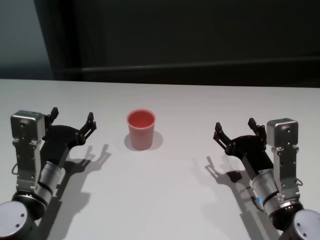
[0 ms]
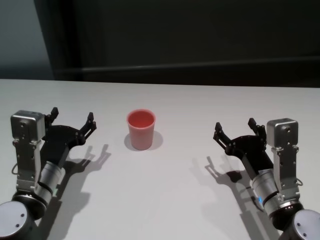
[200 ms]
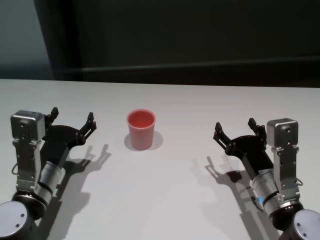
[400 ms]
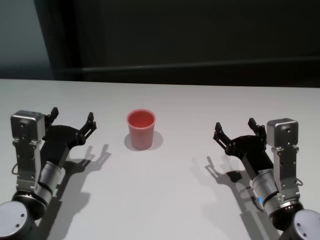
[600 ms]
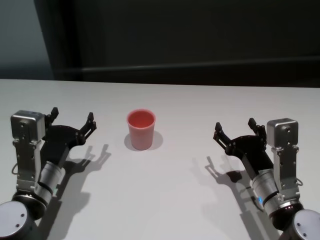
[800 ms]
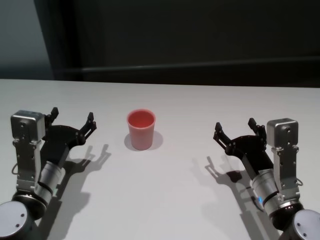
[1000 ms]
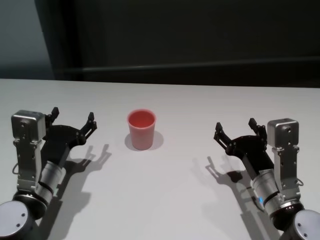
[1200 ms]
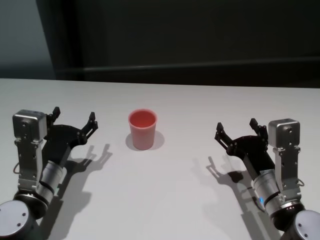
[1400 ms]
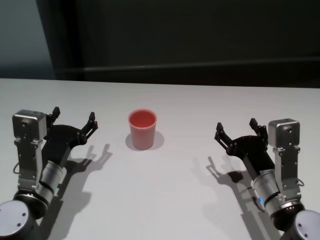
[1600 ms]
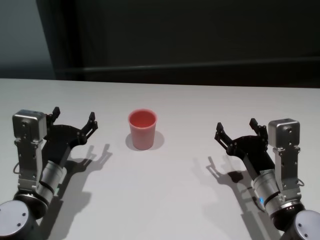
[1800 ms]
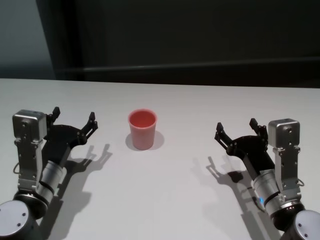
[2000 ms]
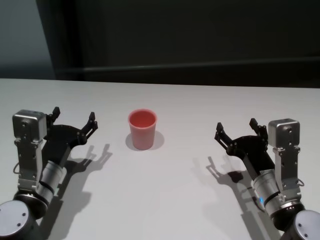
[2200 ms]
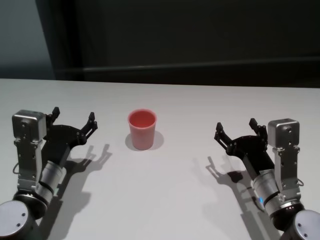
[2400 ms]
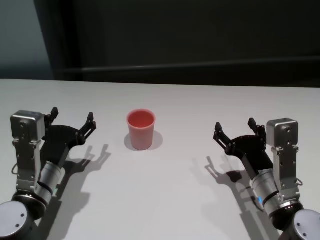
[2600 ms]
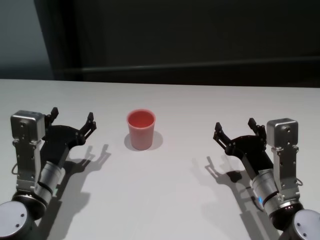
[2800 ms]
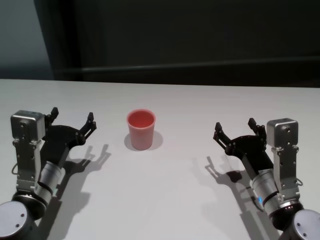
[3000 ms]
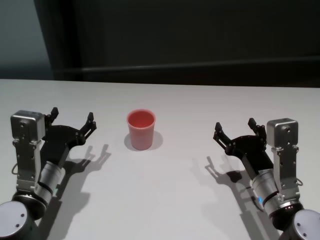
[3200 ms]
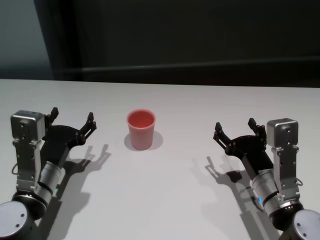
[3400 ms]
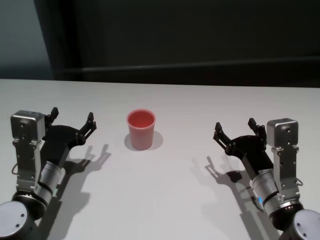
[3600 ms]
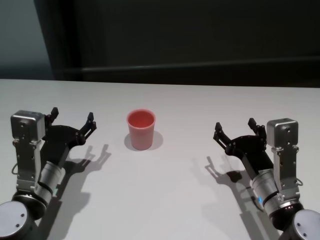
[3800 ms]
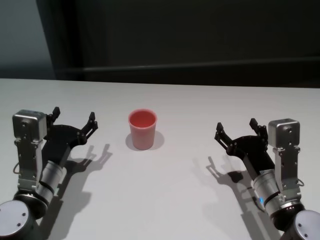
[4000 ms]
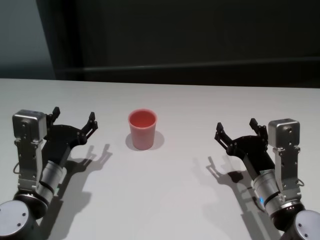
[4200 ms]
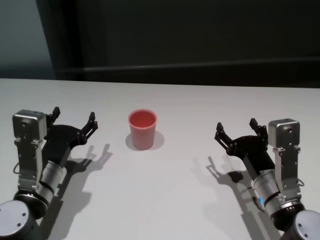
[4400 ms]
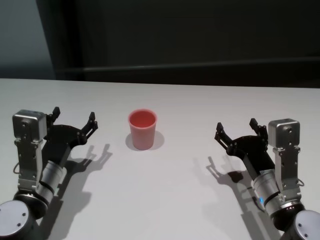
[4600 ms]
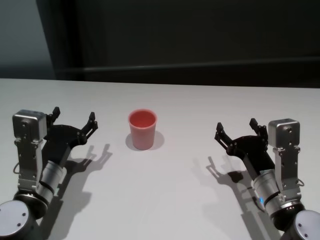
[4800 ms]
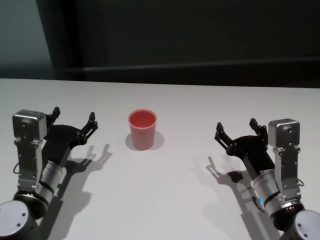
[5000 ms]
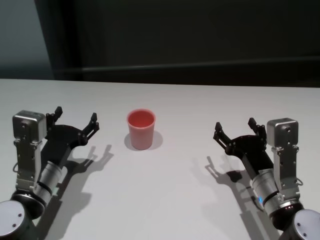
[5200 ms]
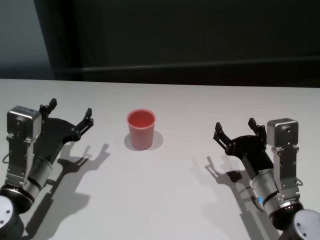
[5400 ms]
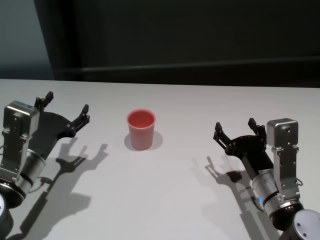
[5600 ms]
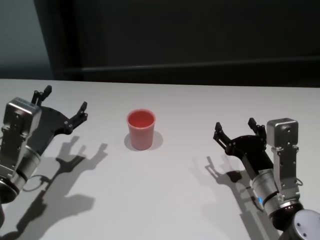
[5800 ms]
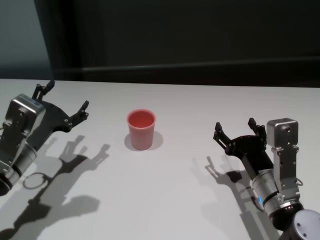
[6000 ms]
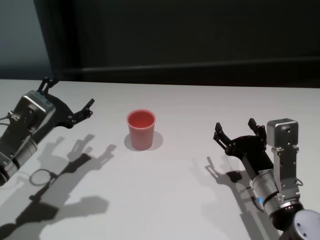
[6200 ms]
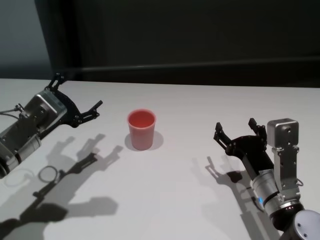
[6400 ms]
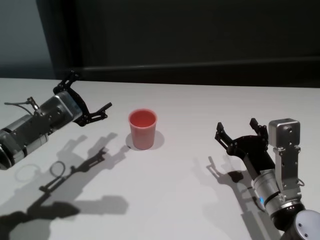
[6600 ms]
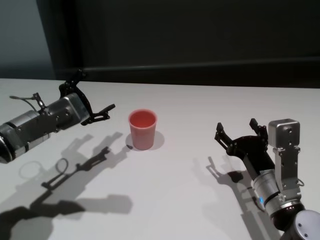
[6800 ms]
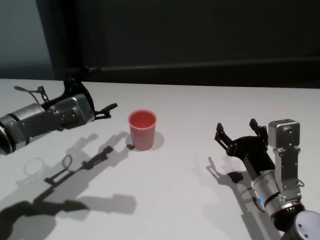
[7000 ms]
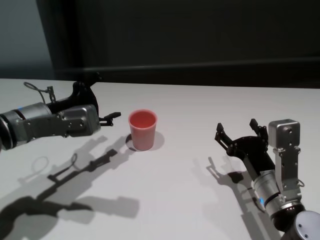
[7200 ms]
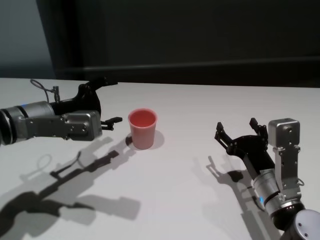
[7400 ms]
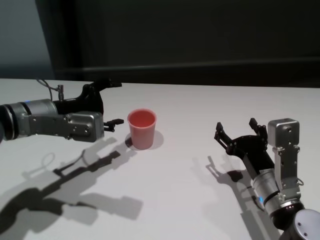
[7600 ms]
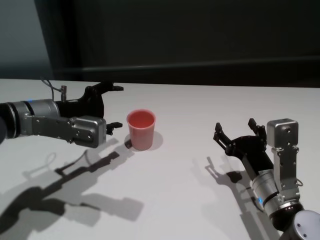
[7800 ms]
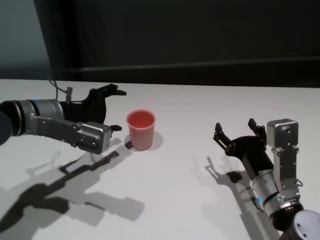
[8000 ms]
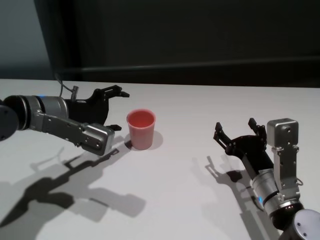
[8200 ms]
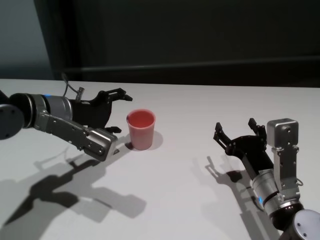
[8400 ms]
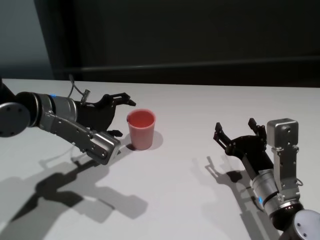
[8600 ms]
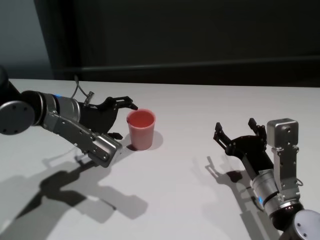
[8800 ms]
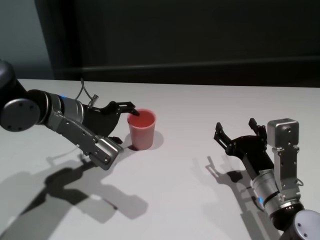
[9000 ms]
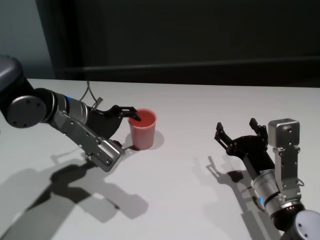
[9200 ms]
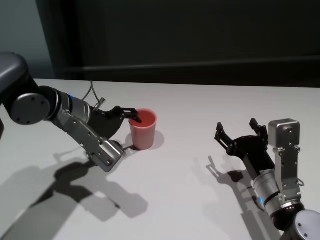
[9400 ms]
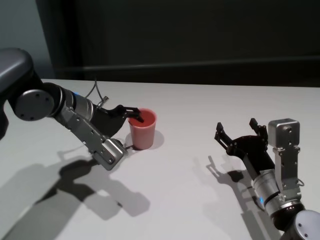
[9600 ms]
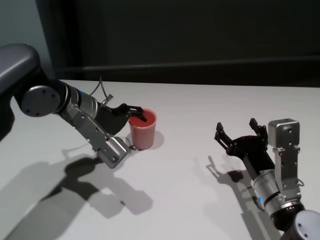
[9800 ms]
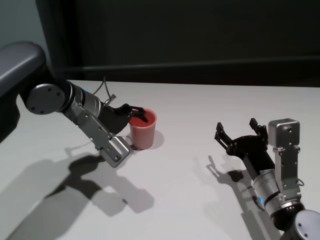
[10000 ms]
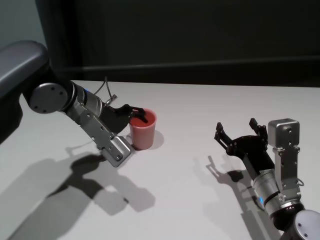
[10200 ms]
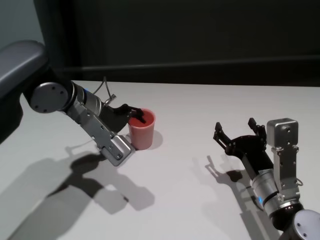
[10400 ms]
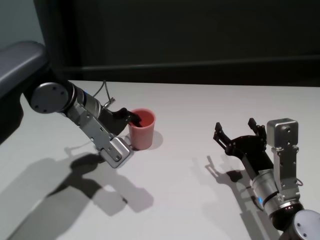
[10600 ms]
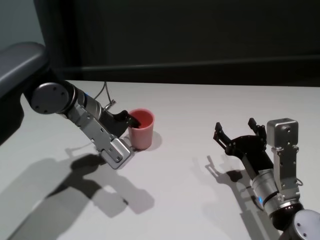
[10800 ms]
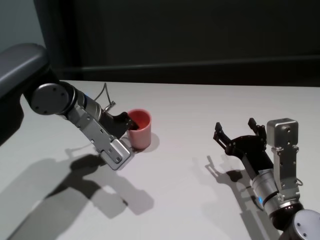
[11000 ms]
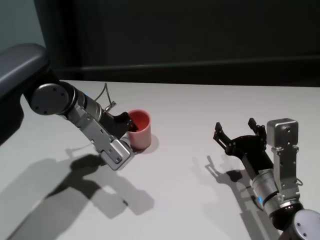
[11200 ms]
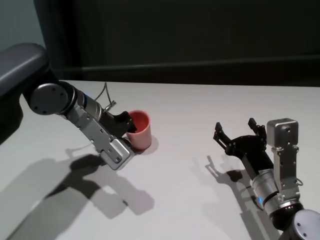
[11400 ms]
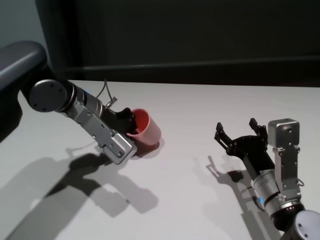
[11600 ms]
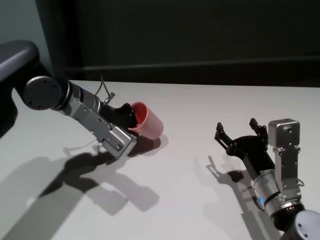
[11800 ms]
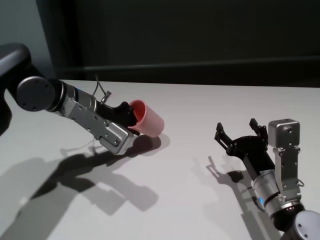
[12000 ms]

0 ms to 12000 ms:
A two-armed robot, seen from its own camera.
Task of the whole recording: On the white table pick up the cup with one hand and transfer it to the other hand before turning it over.
Step, 0 ms to 11400 ms: Grasp the cup with left gripper.

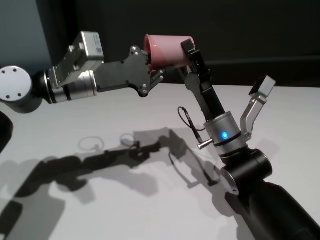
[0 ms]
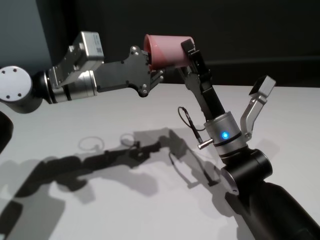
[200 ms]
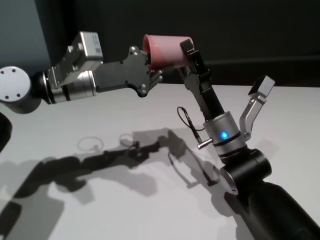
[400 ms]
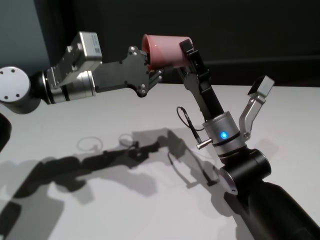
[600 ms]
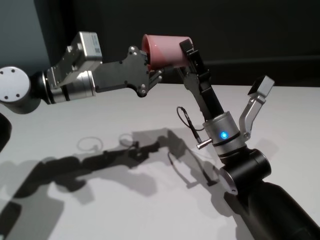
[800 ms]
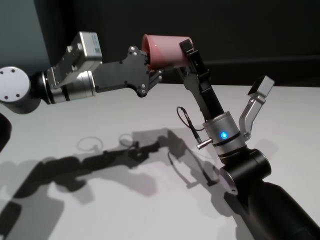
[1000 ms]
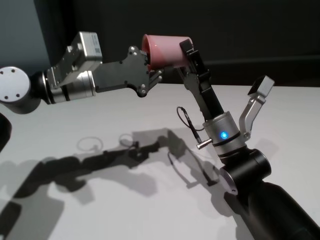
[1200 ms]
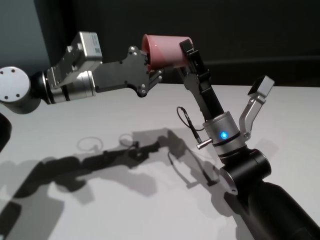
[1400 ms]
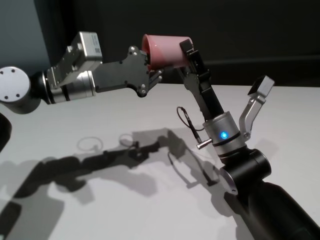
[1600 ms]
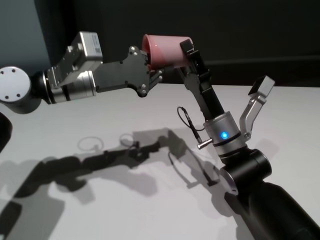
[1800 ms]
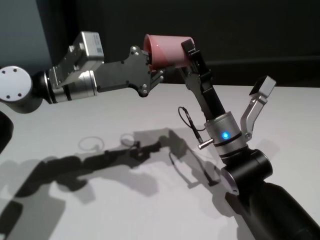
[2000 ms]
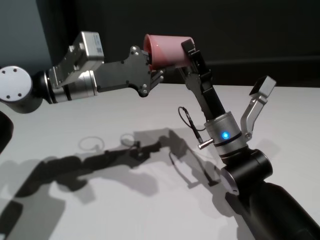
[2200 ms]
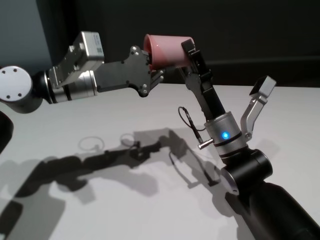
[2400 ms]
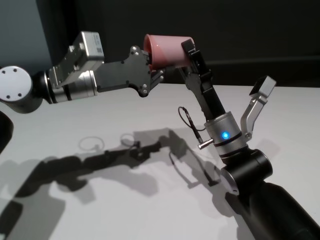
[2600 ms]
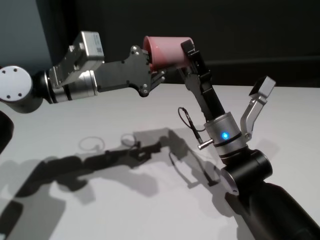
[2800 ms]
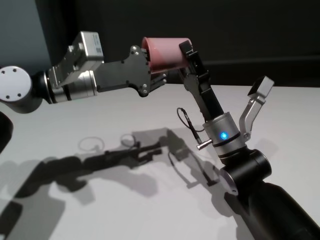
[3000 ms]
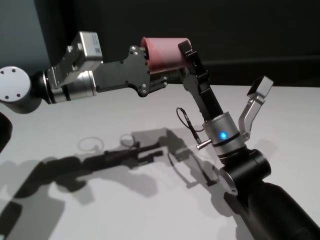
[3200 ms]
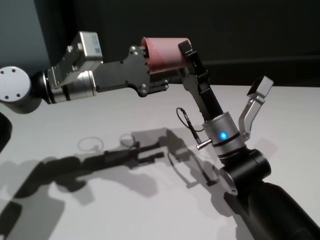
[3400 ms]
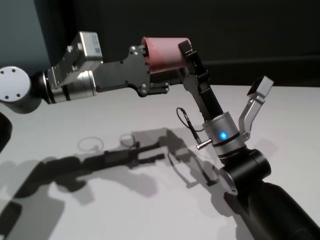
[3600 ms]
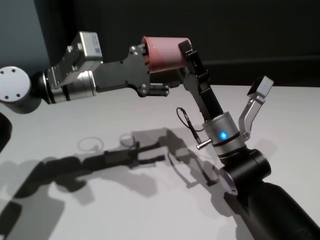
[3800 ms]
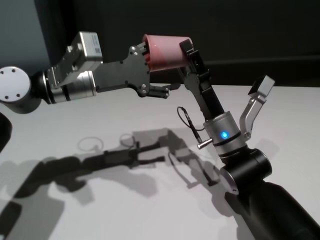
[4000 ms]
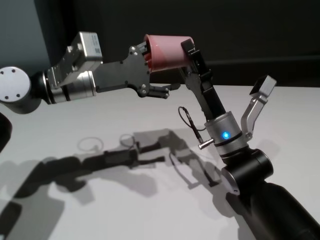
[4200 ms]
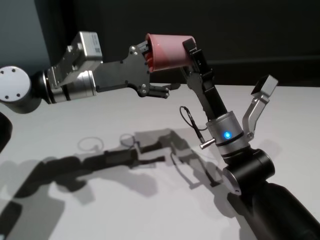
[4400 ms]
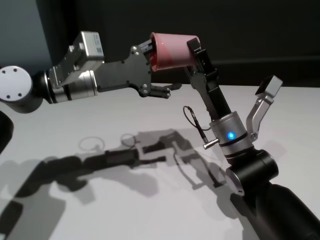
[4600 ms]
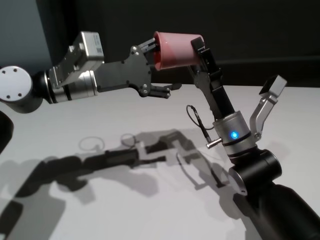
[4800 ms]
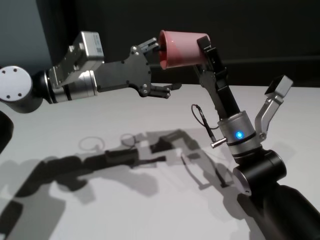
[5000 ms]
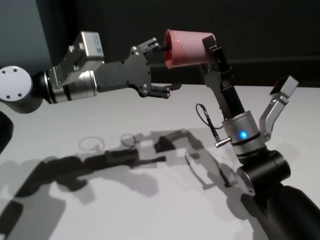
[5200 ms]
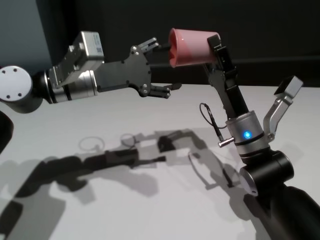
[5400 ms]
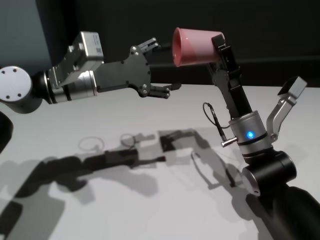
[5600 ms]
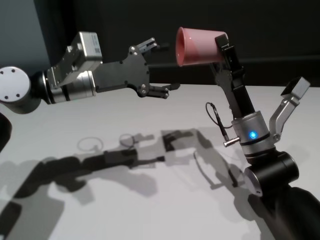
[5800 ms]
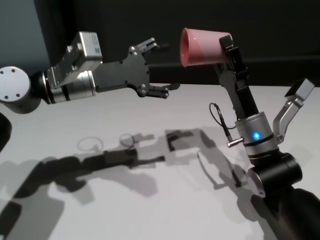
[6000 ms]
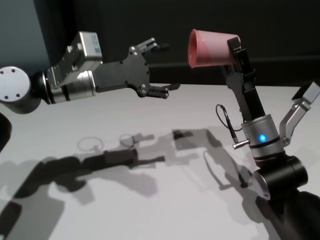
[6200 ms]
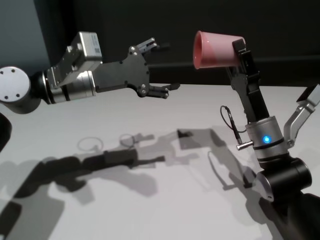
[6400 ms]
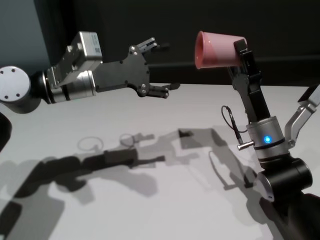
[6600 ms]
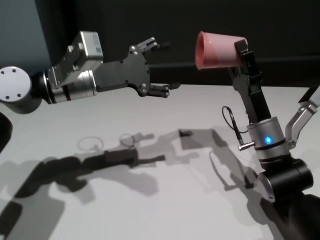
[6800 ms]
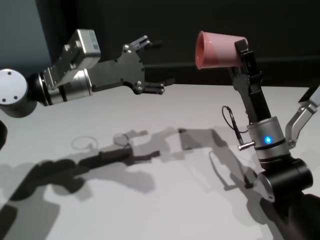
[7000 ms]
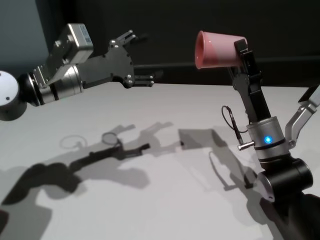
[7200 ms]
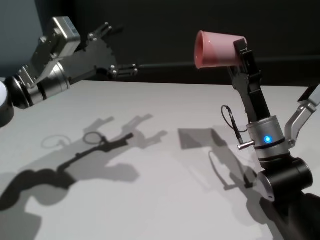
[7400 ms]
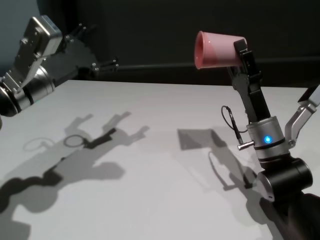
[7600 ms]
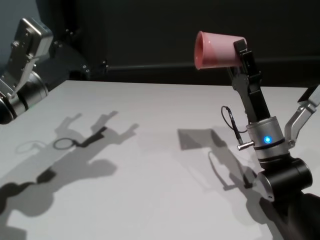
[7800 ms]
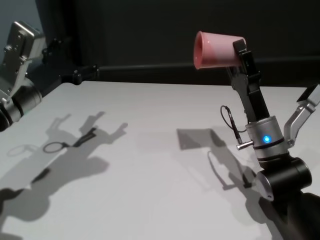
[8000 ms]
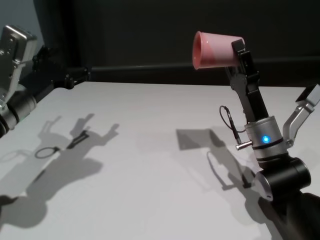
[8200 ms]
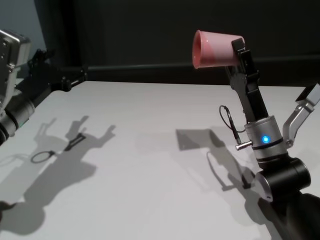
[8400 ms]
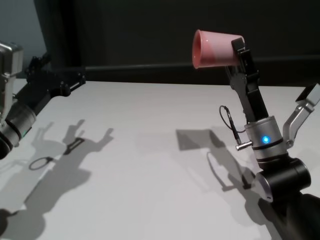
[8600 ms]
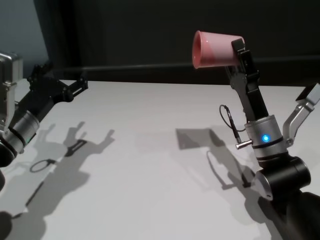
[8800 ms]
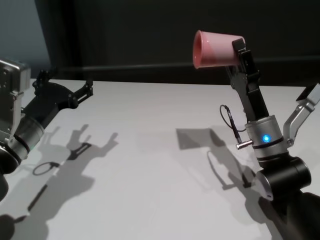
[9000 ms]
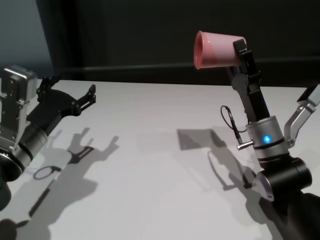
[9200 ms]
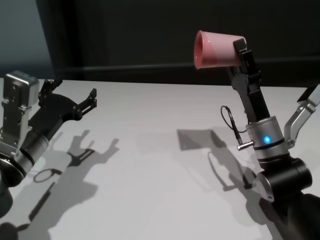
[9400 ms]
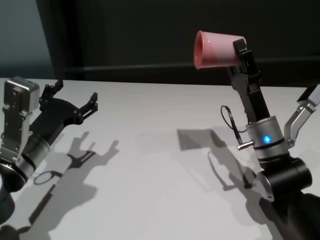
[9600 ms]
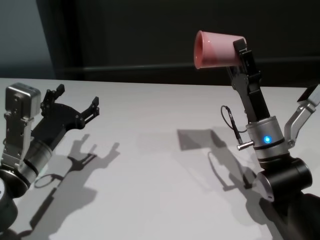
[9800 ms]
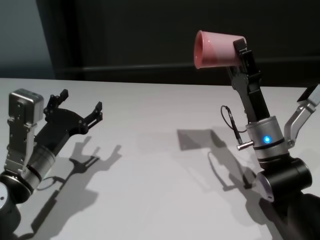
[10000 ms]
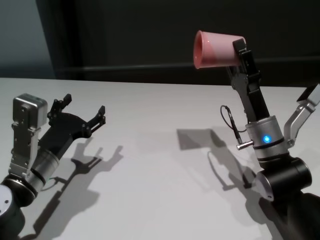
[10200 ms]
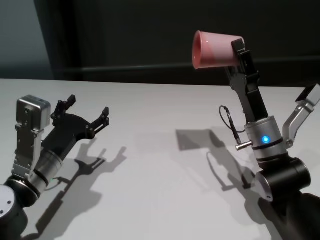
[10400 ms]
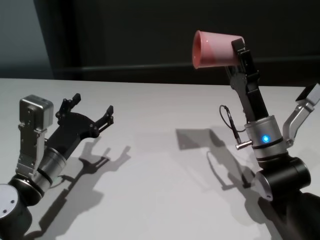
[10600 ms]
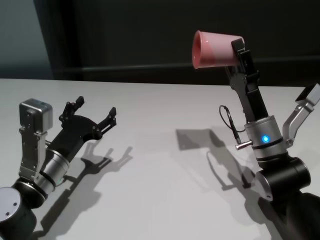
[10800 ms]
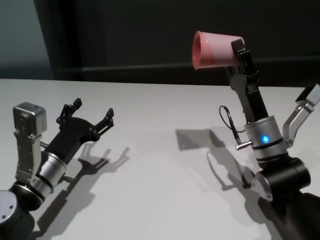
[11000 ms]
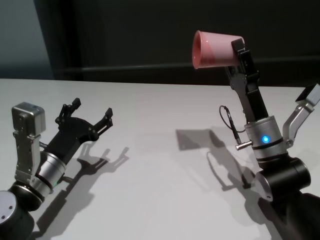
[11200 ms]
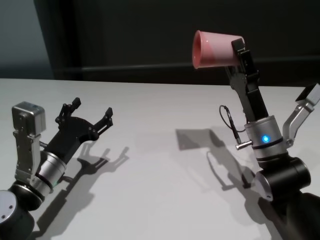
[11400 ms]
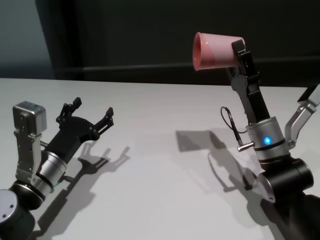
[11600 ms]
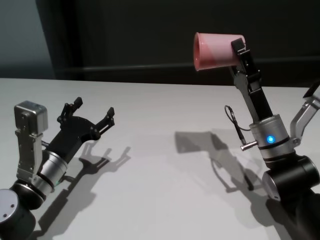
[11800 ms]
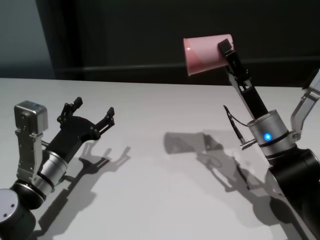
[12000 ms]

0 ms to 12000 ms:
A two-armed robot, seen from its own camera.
Task of the whole recording: On the white table pick up the cup with one hand and transfer it to the other hand before turning it over.
Step, 0 ms to 5200 ms: Pass the cup to the right gripper.
